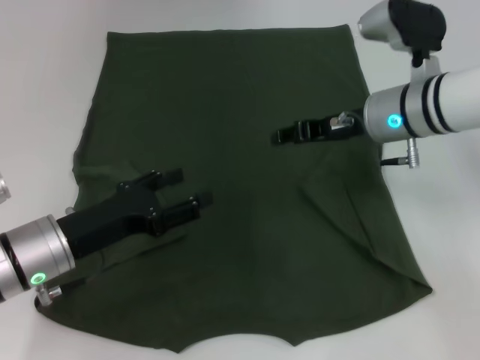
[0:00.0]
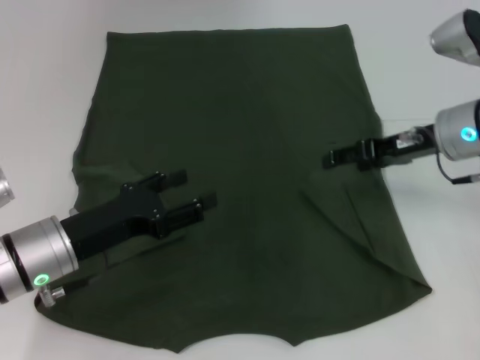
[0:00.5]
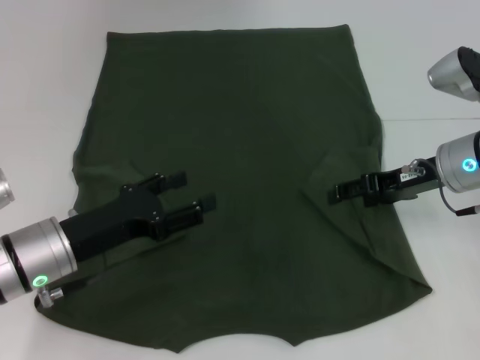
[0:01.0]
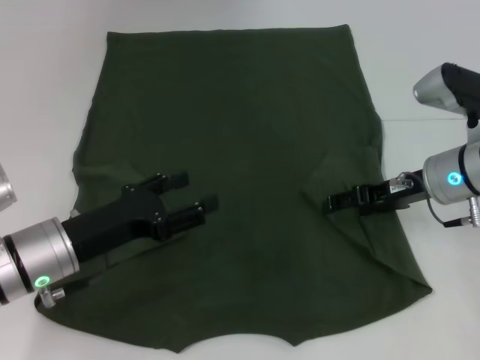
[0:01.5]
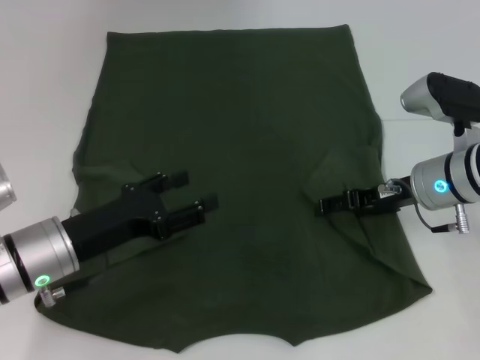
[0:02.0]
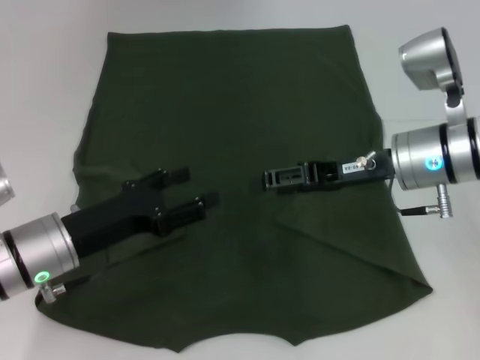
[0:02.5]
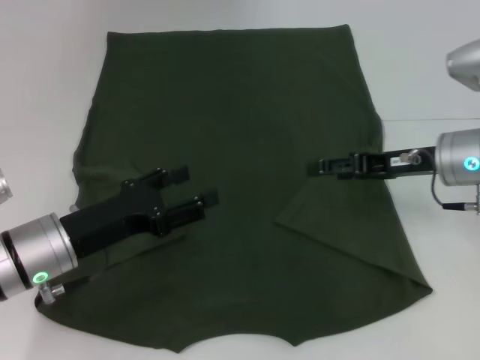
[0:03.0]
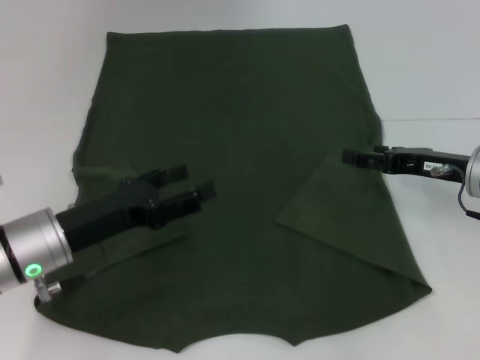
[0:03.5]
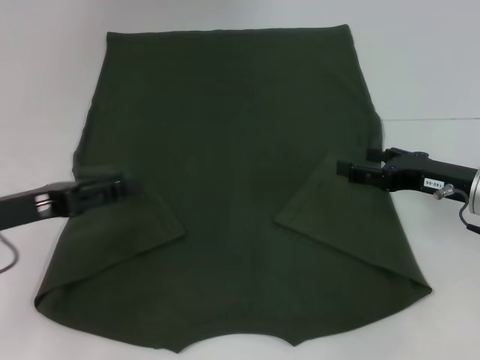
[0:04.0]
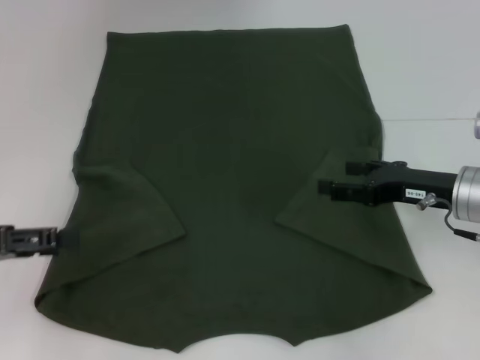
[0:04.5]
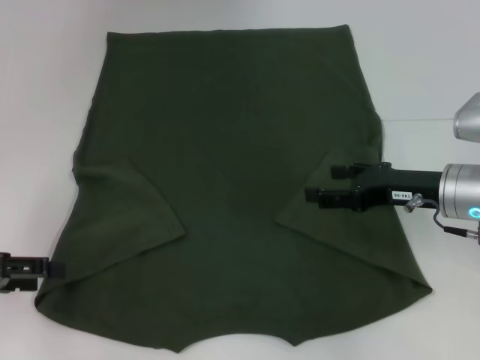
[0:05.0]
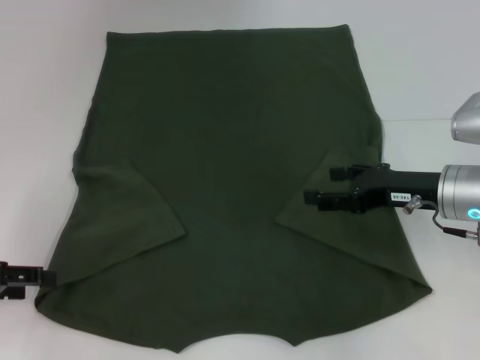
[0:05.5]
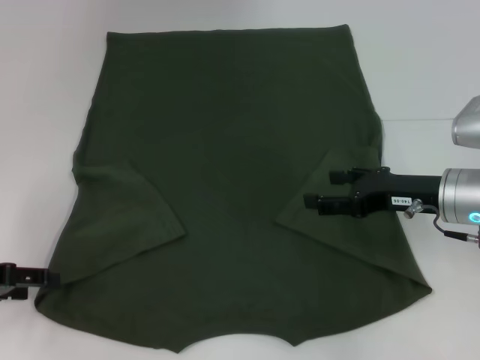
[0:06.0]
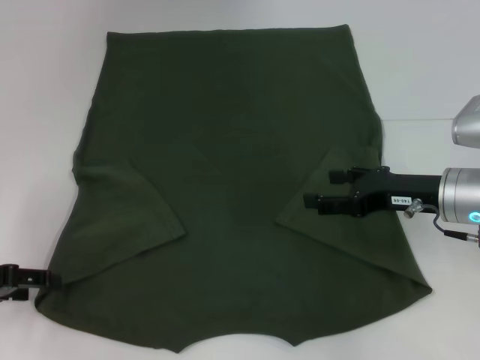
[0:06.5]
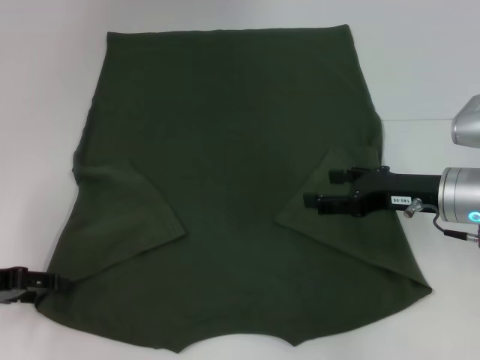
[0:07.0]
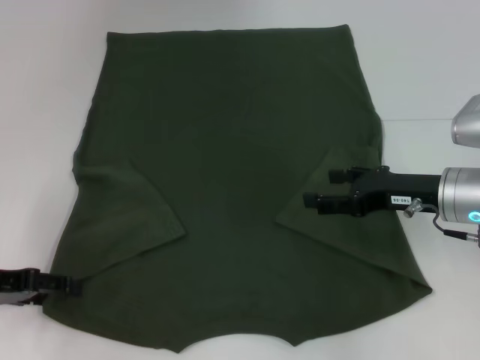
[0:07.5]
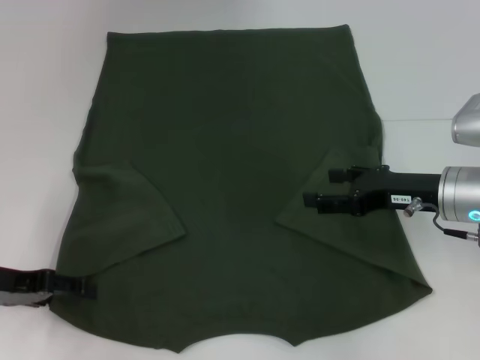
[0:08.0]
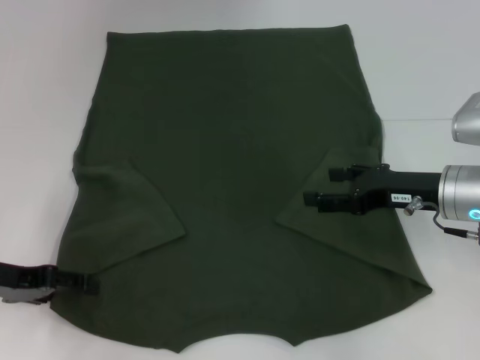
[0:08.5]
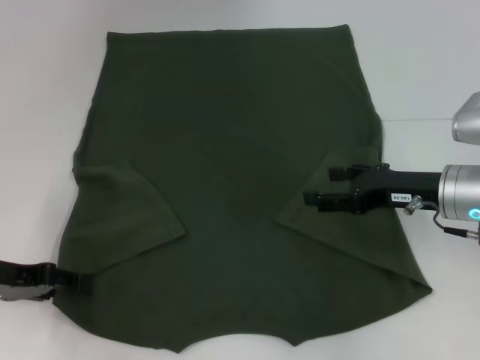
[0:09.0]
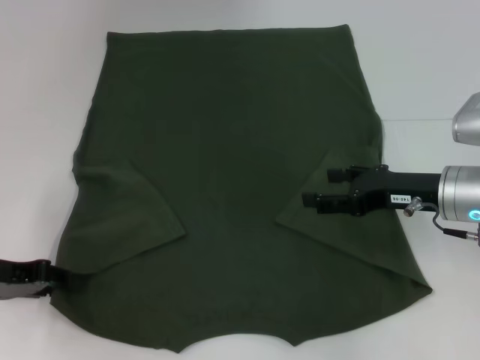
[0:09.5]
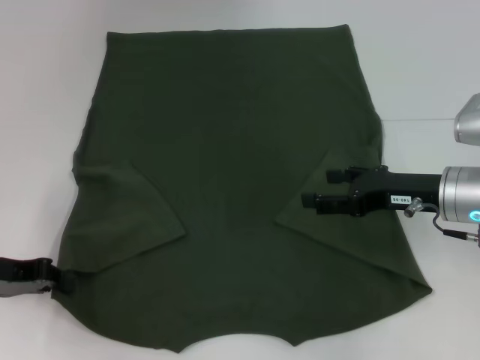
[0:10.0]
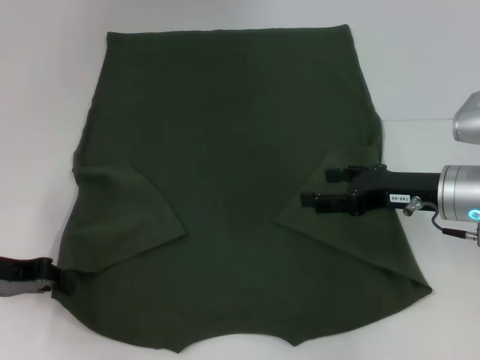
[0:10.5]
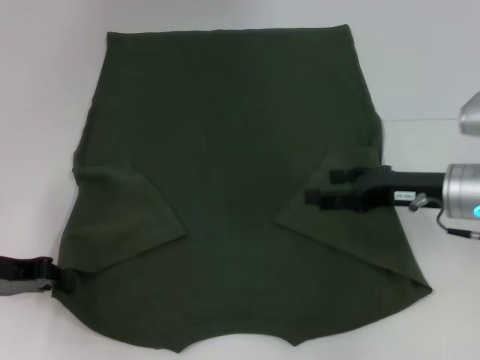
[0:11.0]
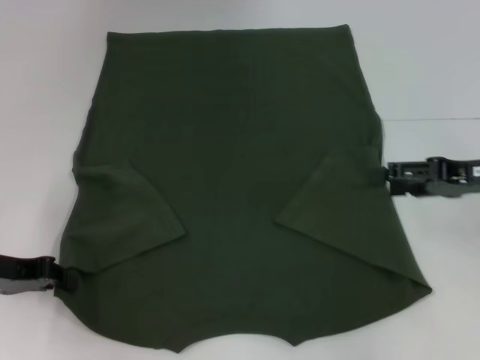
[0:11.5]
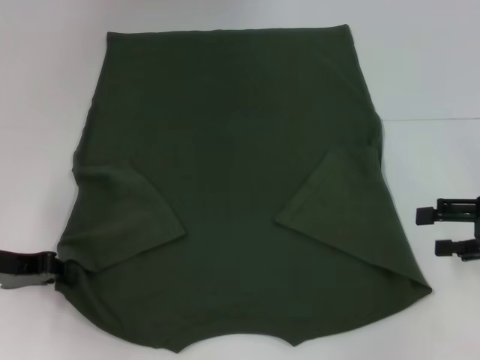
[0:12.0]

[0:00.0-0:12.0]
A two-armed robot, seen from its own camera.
Step, 0:00.0 to 0:02.0: Fold the bottom right sleeve with your right hand.
Step, 0:02.5 to 0:10.5: Grab the bottom left corner with your left hand.
0:00.0 to 0:02.0: The right gripper heads downward and to the right, covering approximately 10 cm, and opens its fingers.
0:02.0 to 0:04.0: The right gripper heads to the right, covering approximately 5 cm; the left gripper travels to the left and upward by approximately 10 cm.
0:04.0 to 0:06.0: The left gripper moves to the left, approximately 5 cm.
0:06.0 to 0:08.0: There are only small adjustments of the grippers.
0:08.0 to 0:10.0: The left gripper closes.
0:10.0 to 0:12.0: The right gripper heads to the right, covering about 10 cm.

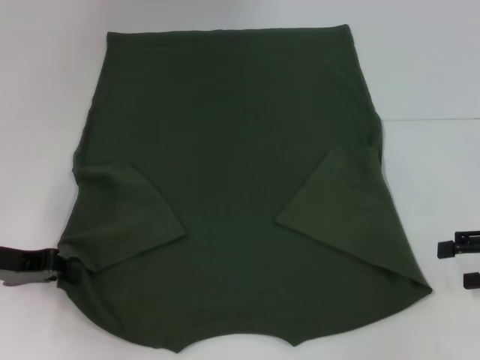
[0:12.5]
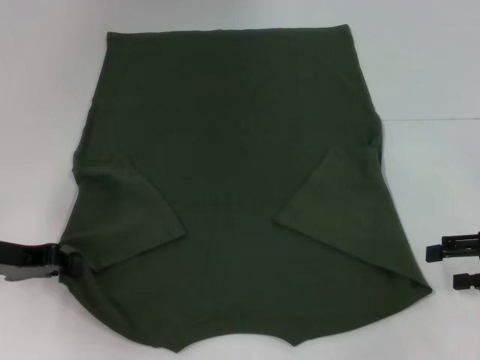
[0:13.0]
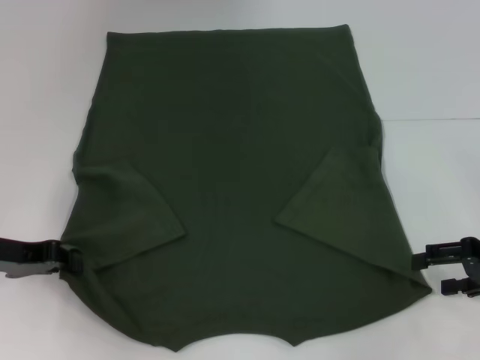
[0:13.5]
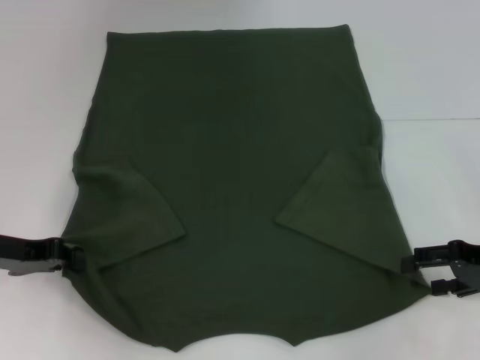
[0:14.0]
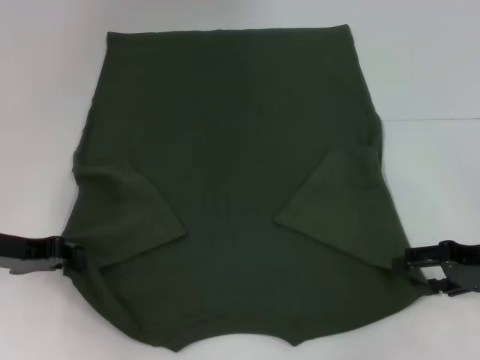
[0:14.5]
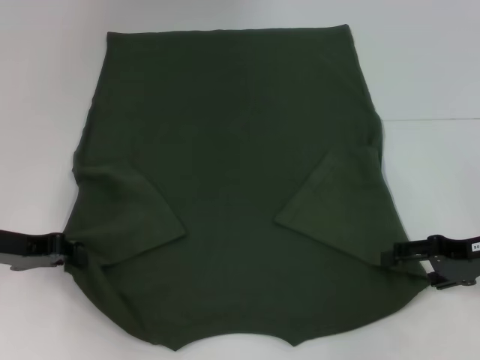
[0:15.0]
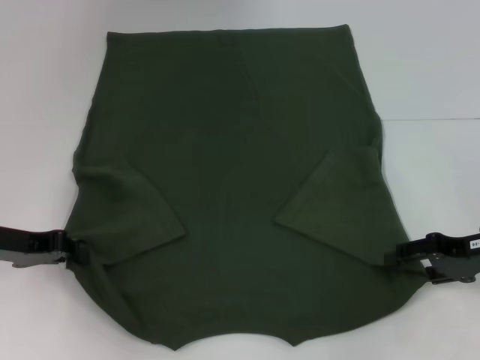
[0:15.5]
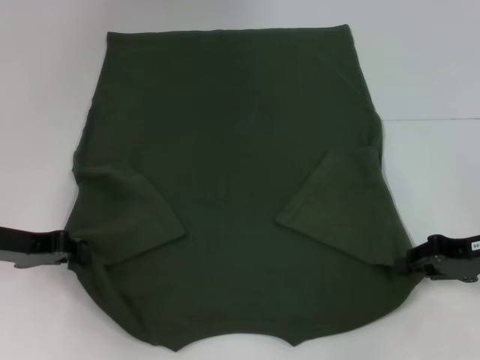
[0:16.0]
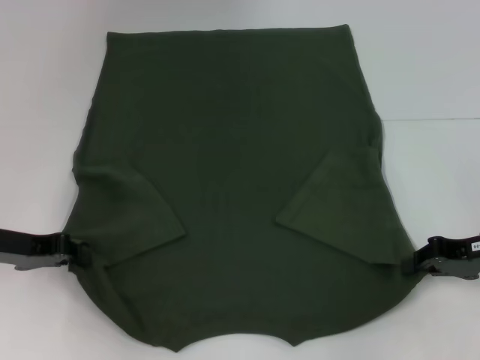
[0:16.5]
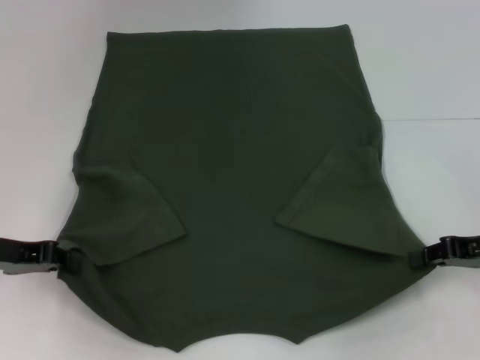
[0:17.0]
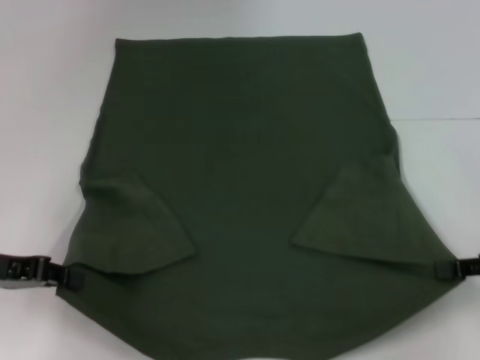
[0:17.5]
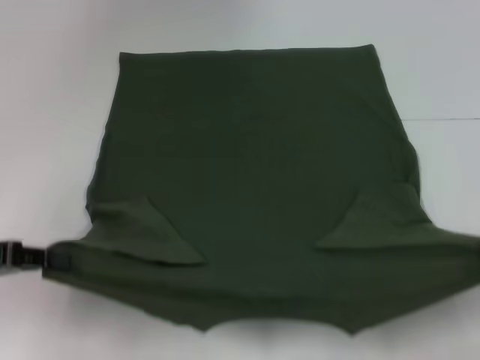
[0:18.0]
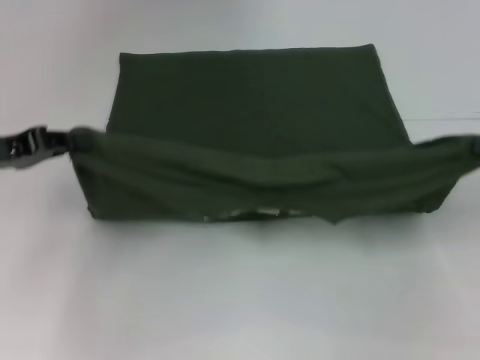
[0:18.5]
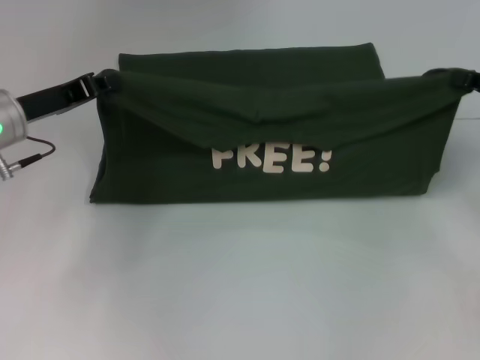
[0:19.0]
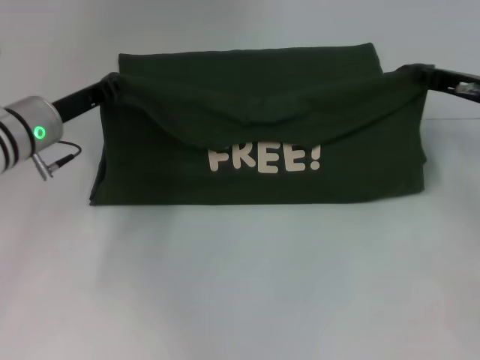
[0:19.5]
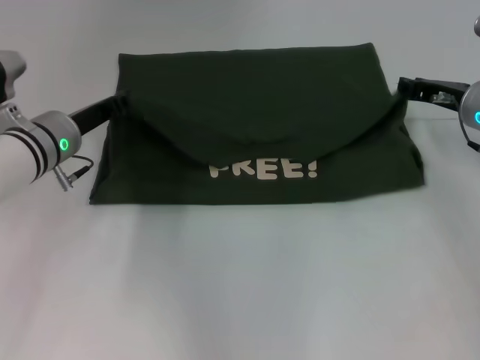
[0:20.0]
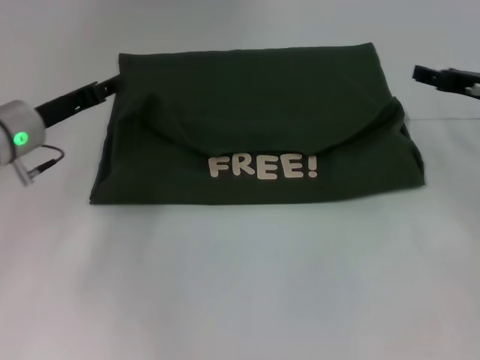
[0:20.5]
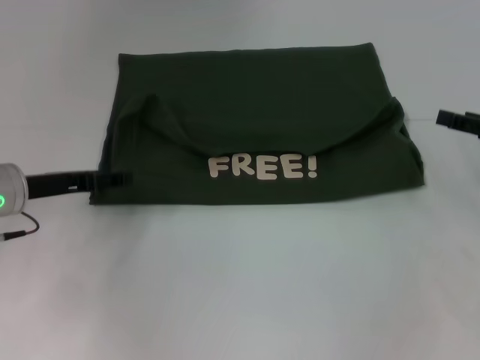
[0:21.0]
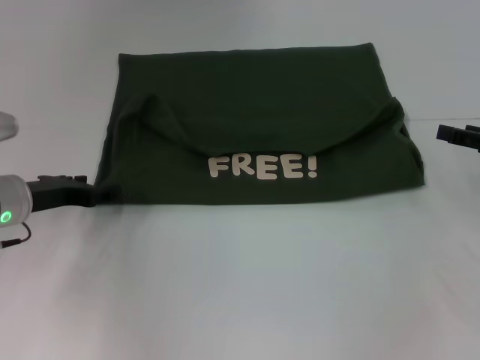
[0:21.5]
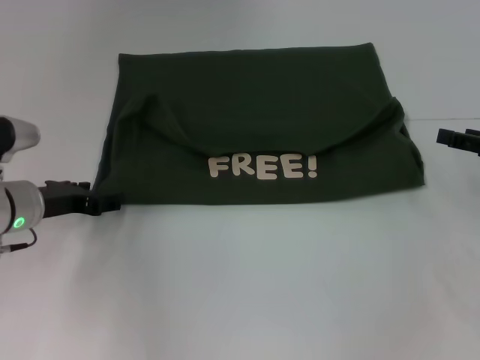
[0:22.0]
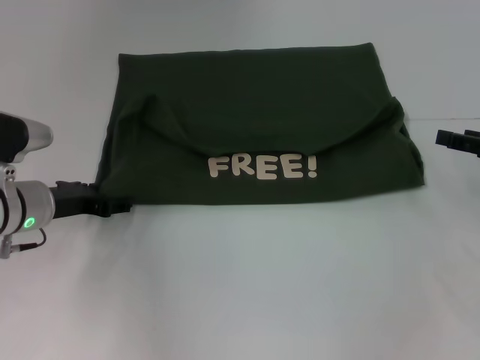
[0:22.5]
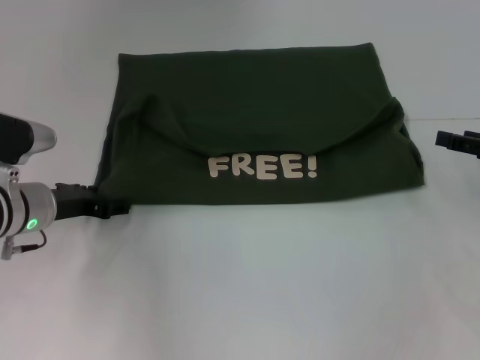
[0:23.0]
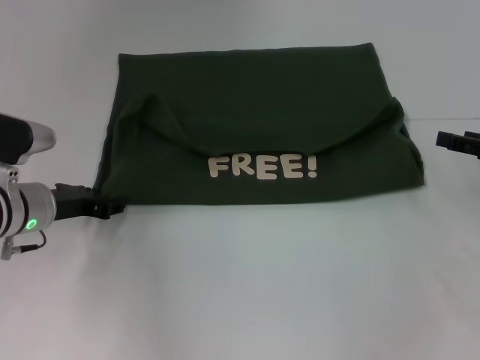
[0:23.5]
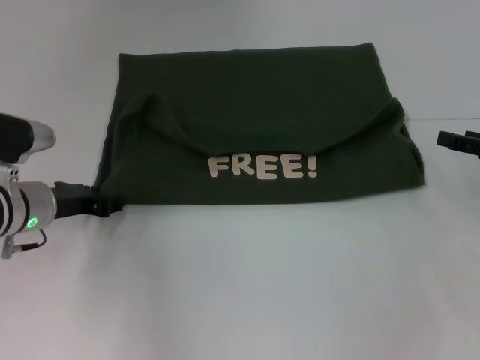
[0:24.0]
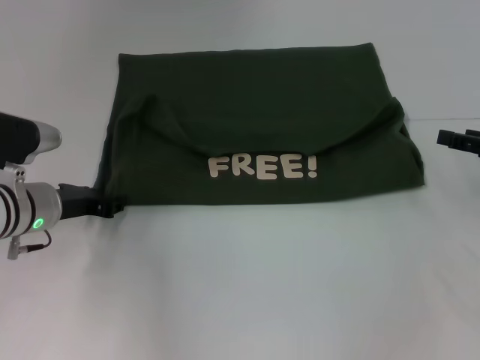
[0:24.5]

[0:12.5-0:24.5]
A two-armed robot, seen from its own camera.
Step, 0:12.5 to 0:17.0: Grab the bottom right corner with your right hand.
Step, 0:17.5 to 0:20.0: Fold the clothes with your left hand.
Step, 0:17.5 to 0:20.0: Fold the clothes with your right hand.
0:12.5 to 0:14.5: The right gripper moves about 5 cm.
0:14.5 to 0:16.5: The right gripper closes.
0:16.5 to 0:18.5: The left gripper moves upward, approximately 5 cm, while the right gripper heads upward and to the right, covering some 10 cm.
0:18.5 to 0:20.5: The right gripper goes about 10 cm forward and to the left, and opens up; the left gripper is displaced forward and to the right by about 10 cm, and opens its fingers.
0:20.5 to 0:22.5: The right gripper is displaced backward and to the right by some 10 cm; the left gripper travels downward by roughly 5 cm.
0:22.5 to 0:24.5: The left gripper closes.

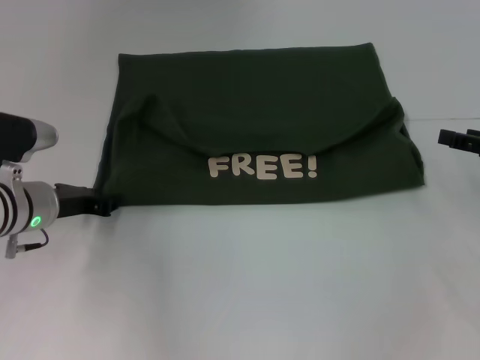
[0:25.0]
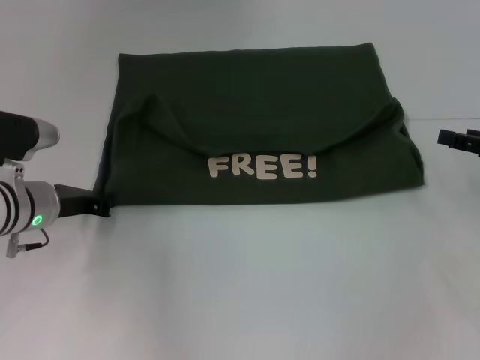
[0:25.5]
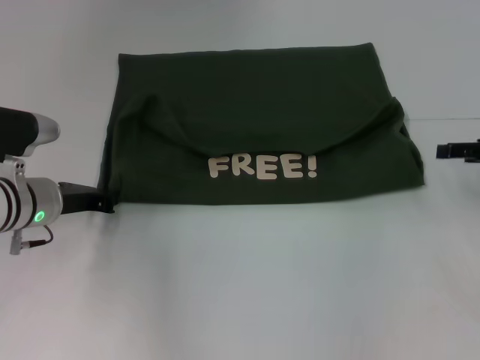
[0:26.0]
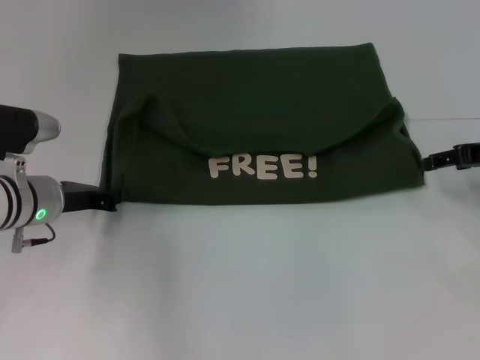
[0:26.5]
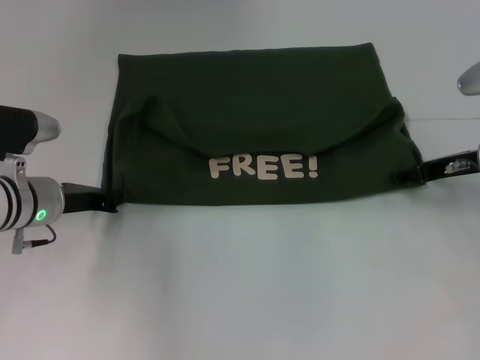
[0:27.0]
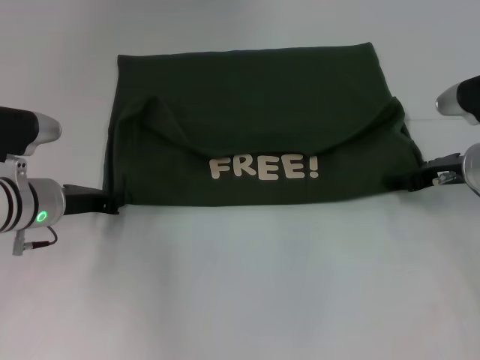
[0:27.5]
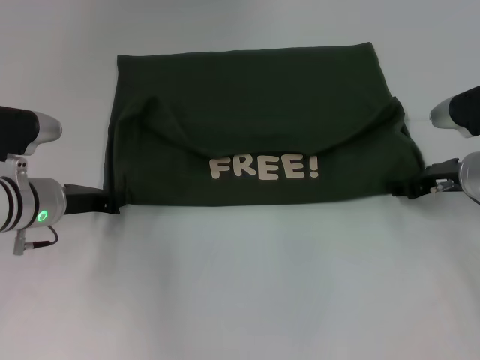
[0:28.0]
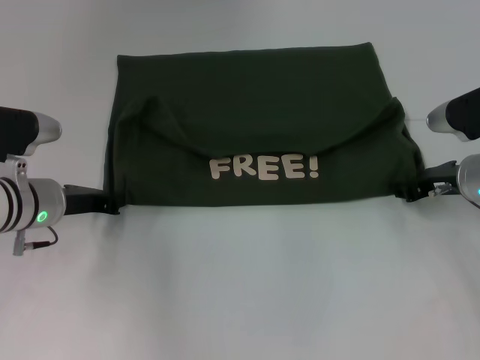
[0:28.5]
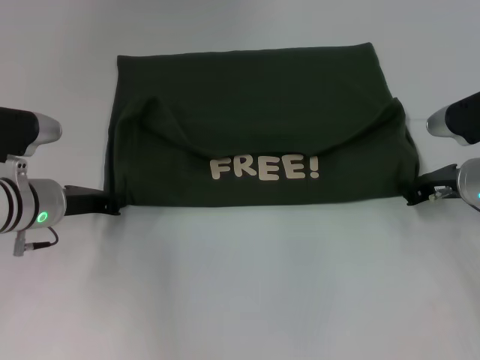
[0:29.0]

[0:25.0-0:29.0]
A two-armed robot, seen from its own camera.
0:25.0 to 0:27.0: The left gripper closes up. Meanwhile the right gripper travels to the left and forward by approximately 10 cm.
0:27.0 to 0:29.0: The right gripper closes.
